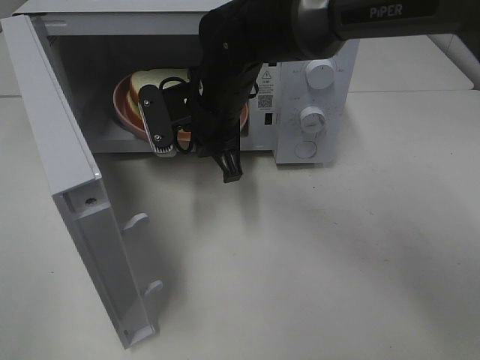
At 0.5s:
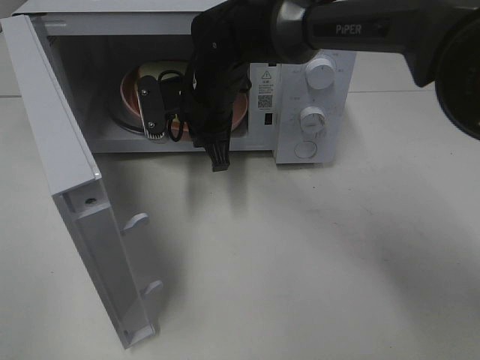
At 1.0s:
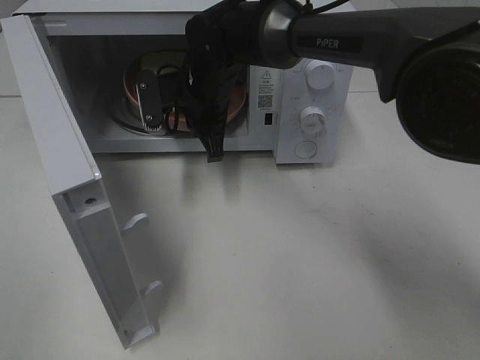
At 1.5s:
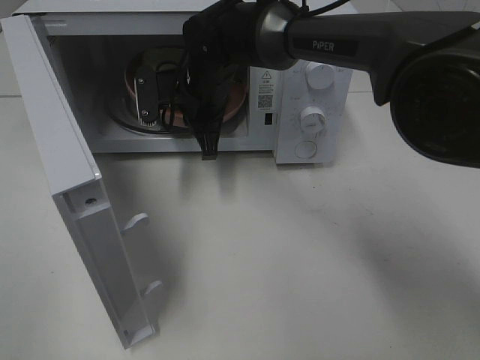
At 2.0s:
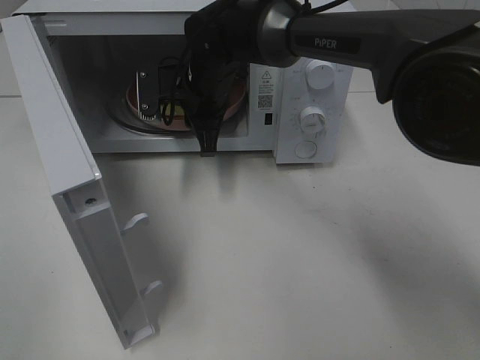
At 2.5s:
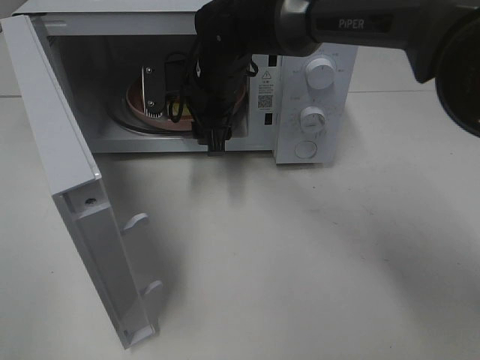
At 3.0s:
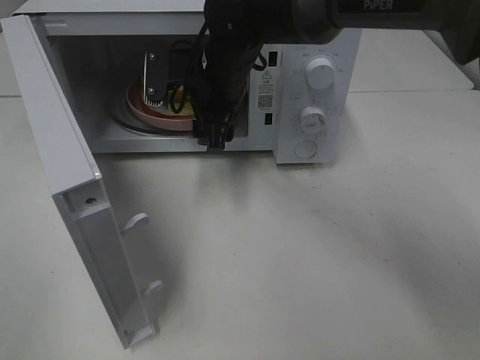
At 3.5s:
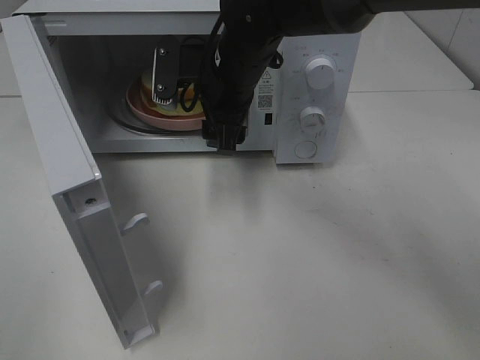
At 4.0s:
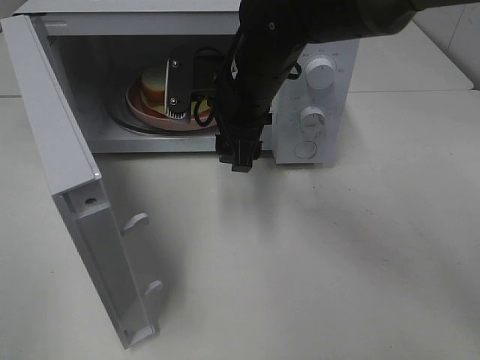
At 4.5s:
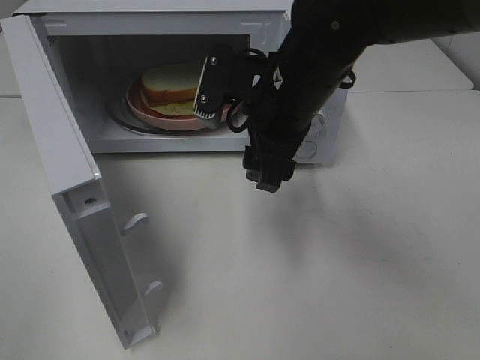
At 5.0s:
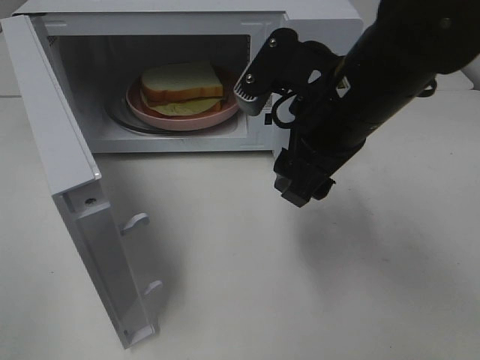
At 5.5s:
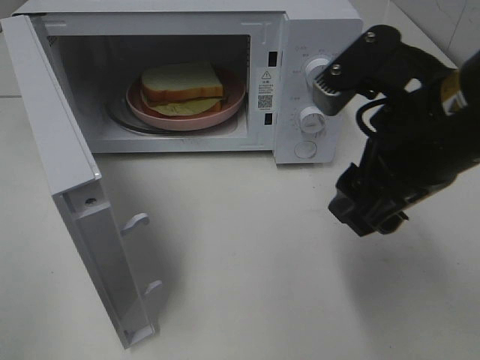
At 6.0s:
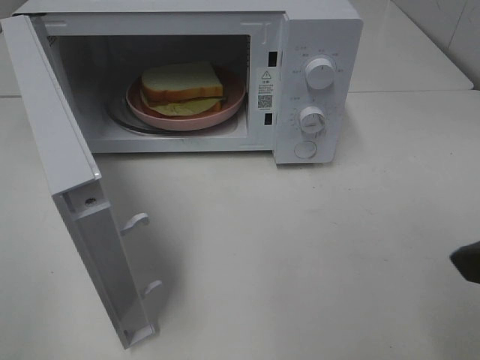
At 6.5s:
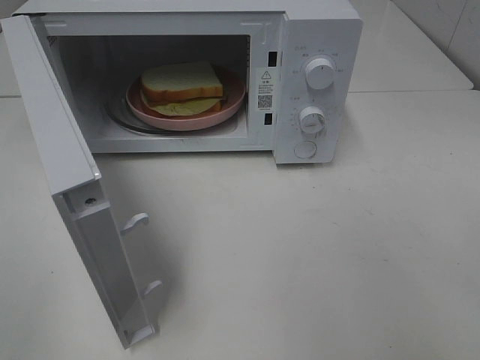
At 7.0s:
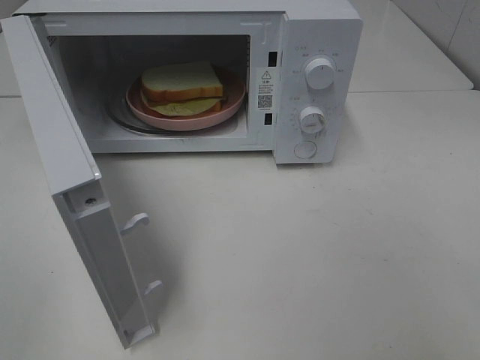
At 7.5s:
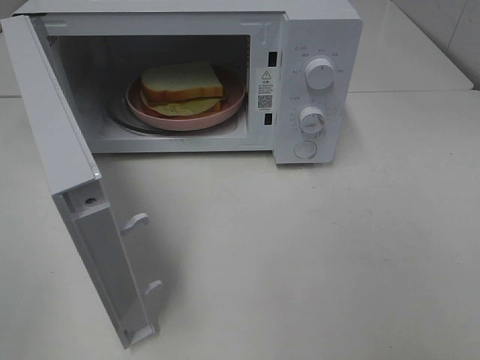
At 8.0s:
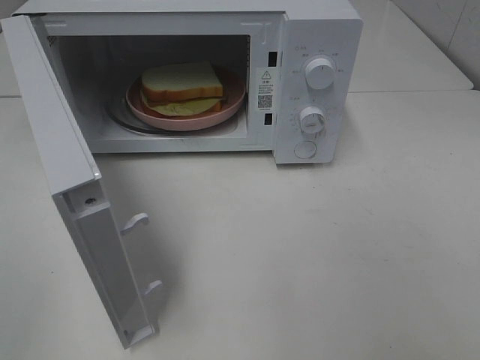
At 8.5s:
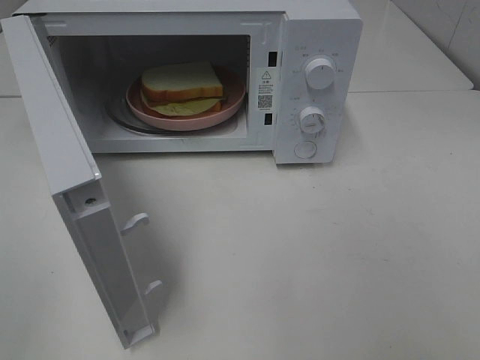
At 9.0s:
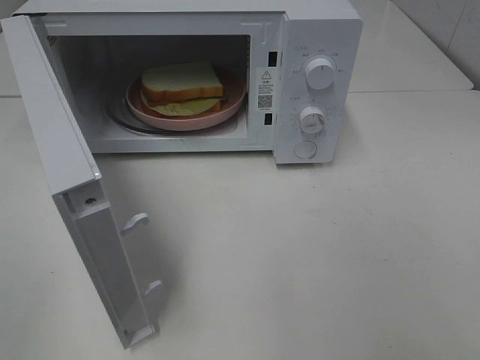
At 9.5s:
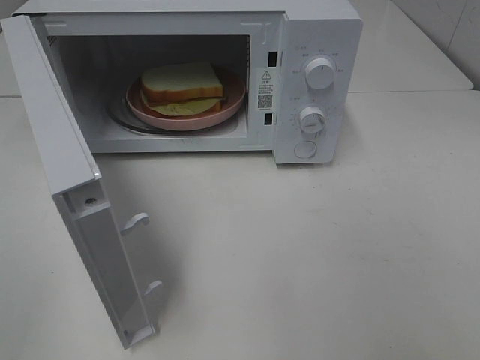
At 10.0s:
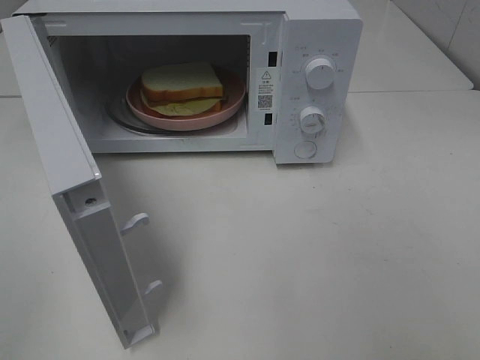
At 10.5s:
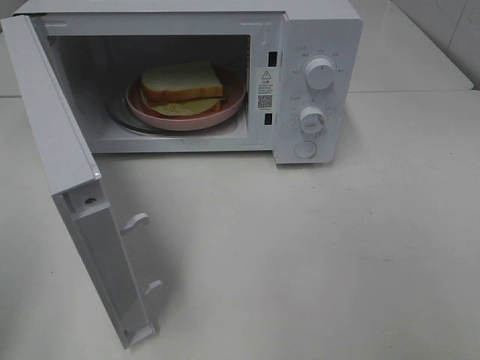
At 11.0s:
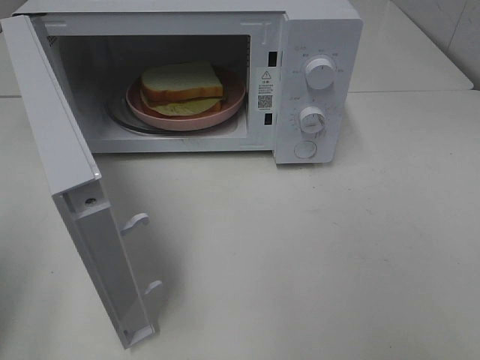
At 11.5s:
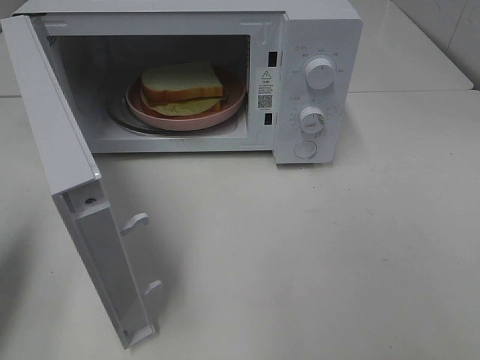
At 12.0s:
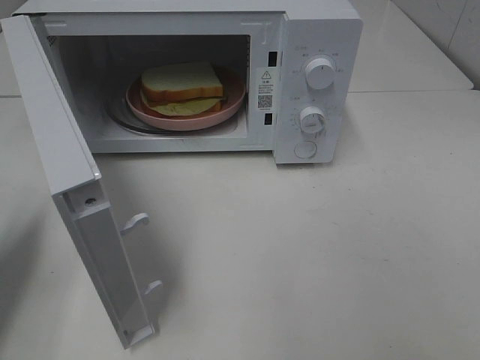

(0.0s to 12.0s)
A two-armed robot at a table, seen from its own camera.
Task of the whole recording: Heat Sandwich.
Step, 0.0s - 2.5s: Right hand: place the plate in the microwave.
0.0s - 2.0s: The right gripper moves forward, roughly 5 cm.
2.0s - 4.0s: The right gripper is displaced backward and to the right by roughly 10 cm, and opens up.
4.0s - 6.0s: The right gripper goes about 30 cm backward and to the right.
6.0s - 8.0s: The right gripper moves backward and to the right, approximately 15 cm.
8.0s - 10.0s: Both grippers stay put.
10.0s - 12.0s: The left gripper shifts roughly 25 cm forward and downward, and closes.

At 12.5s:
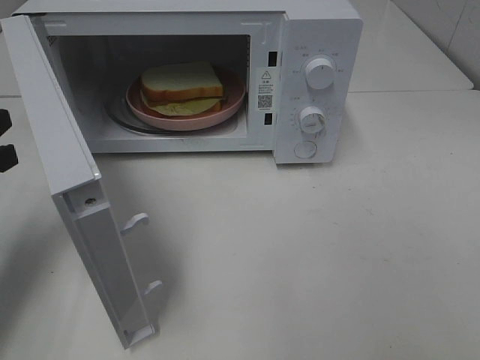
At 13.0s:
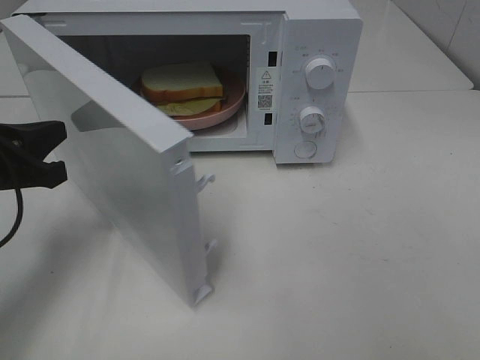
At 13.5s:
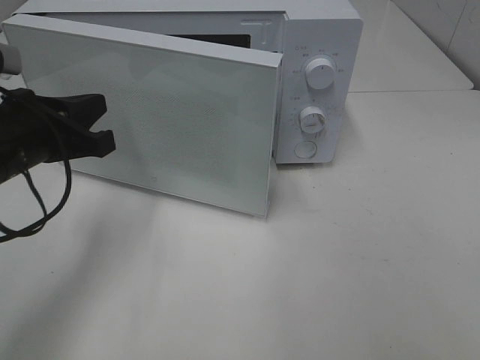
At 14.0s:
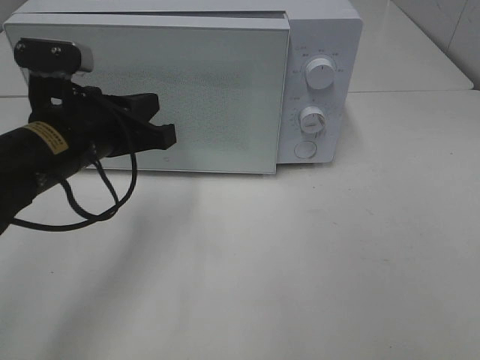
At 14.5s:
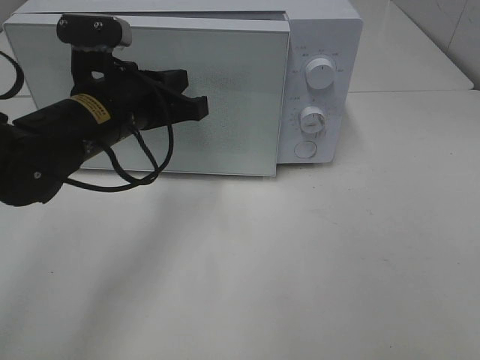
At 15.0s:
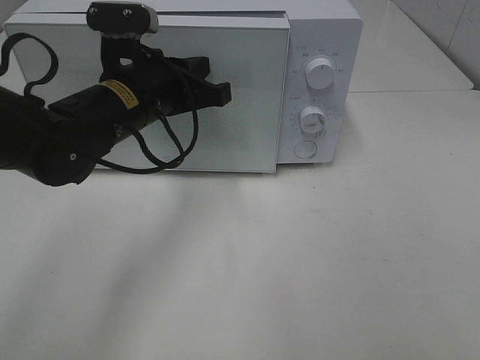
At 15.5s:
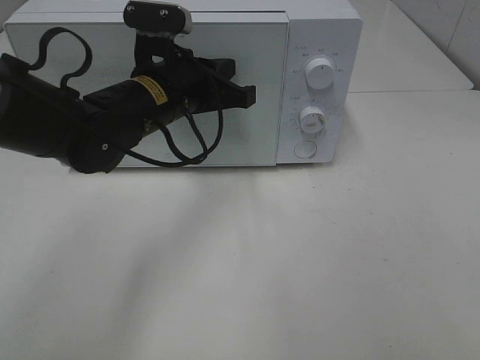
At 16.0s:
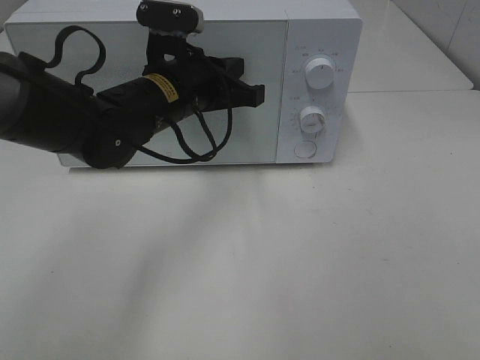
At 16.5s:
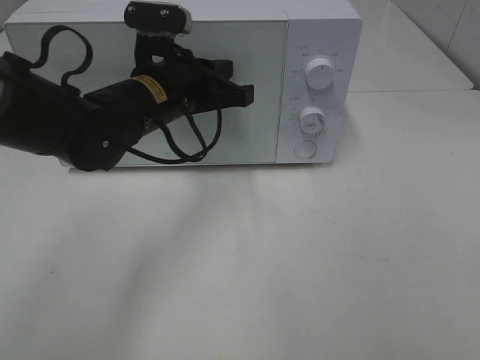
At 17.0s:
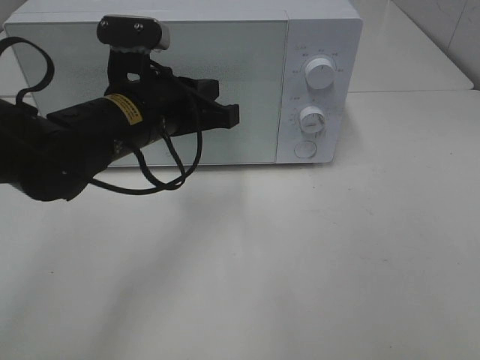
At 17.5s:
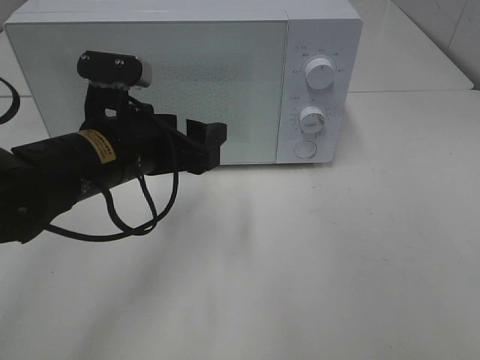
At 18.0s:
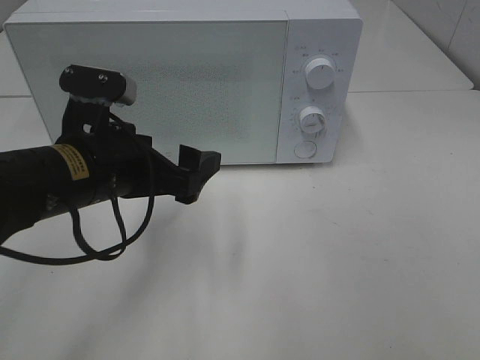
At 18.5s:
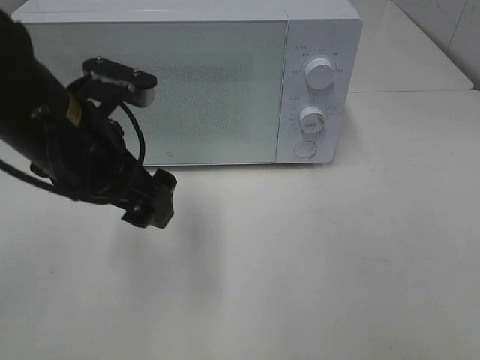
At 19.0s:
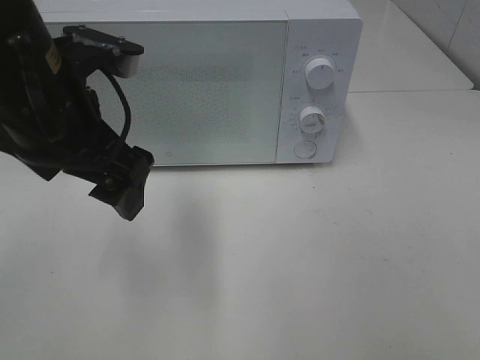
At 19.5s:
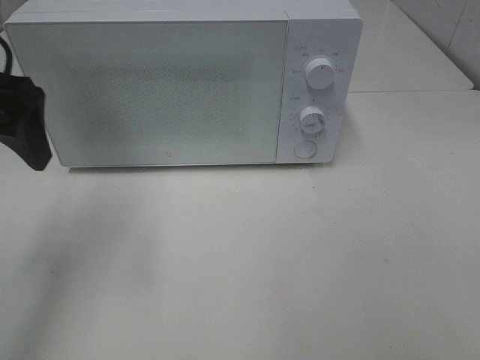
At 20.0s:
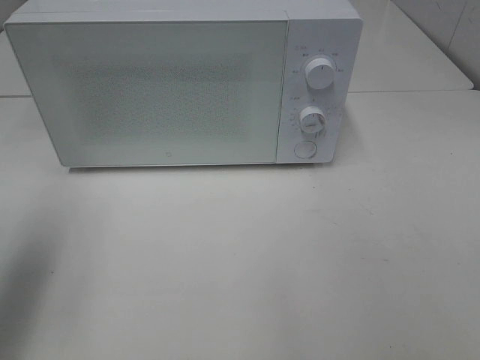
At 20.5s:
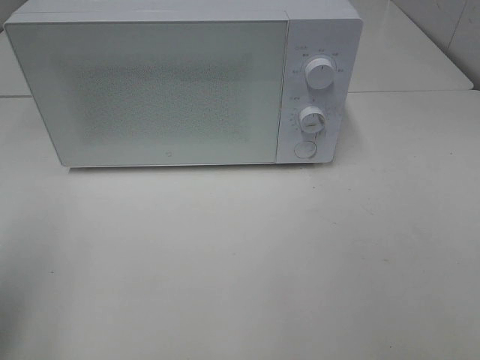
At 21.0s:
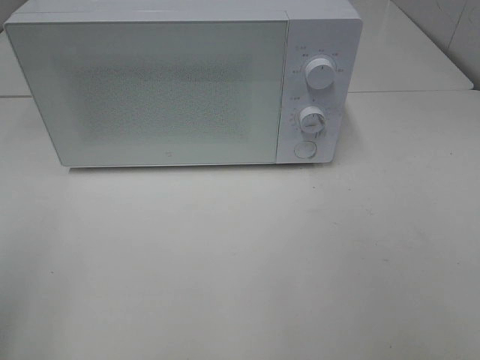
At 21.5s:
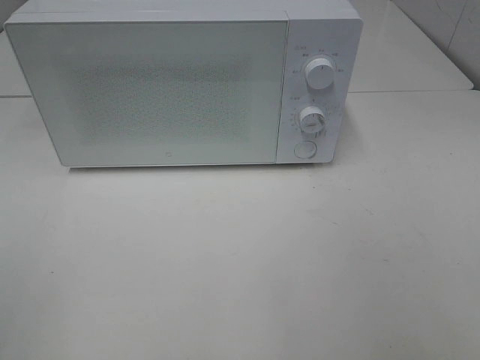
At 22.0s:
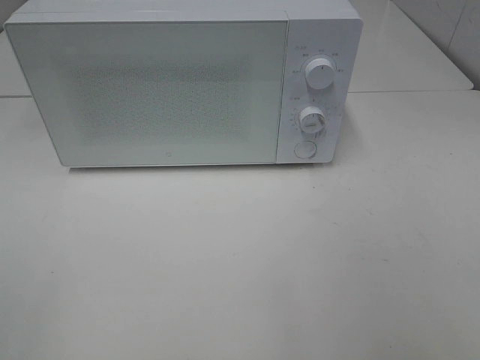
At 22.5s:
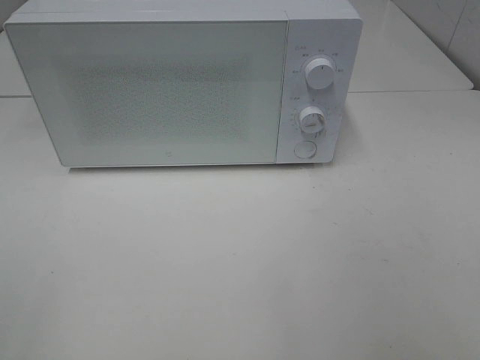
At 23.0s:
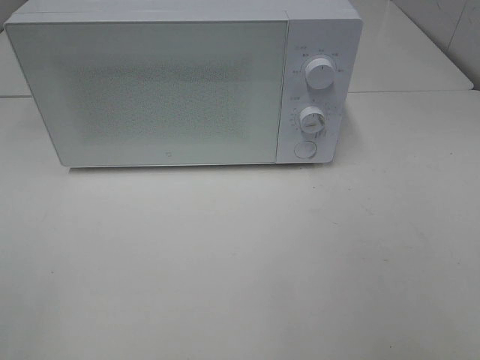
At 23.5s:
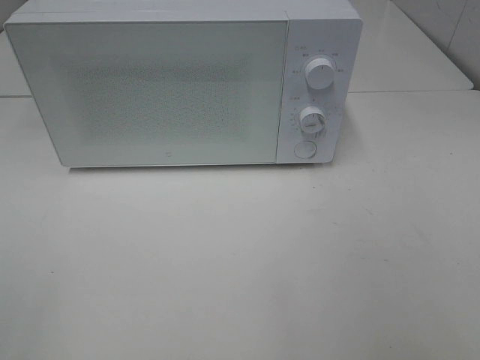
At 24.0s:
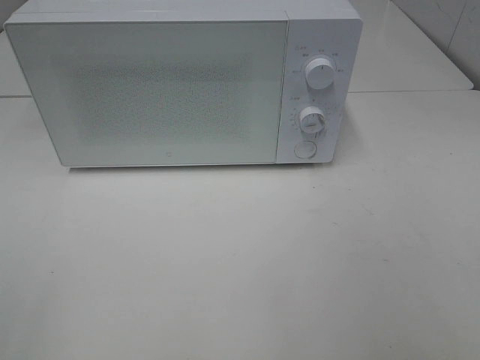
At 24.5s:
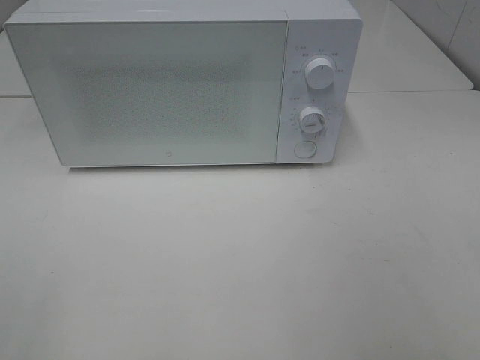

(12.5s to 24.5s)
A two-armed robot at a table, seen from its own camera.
Task of the whole recording: Heat Sandwich.
Step, 12.5s - 16.5s: Left hand: close the microwave door.
12.5s - 14.5s: The left gripper travels to the right by some 15 cm.
14.5s - 16.5s: The left gripper changes place by about 5 cm.
16.5s - 18.5s: The left gripper heads backward and to the left, covering about 10 cm, and opens up.
18.5s - 20.5s: The left gripper heads to the left and backward, covering about 20 cm.
20.5s - 22.5s: The left gripper moves backward, approximately 15 cm.

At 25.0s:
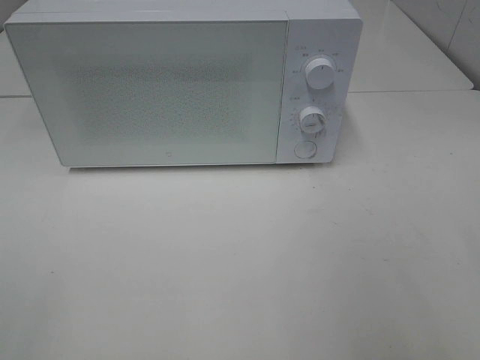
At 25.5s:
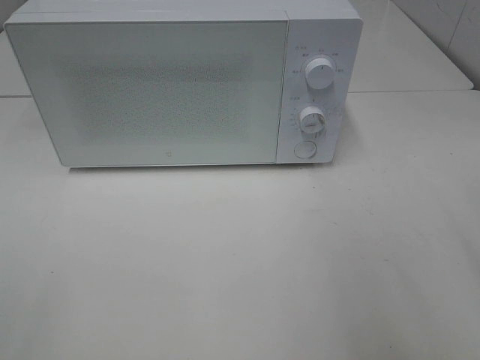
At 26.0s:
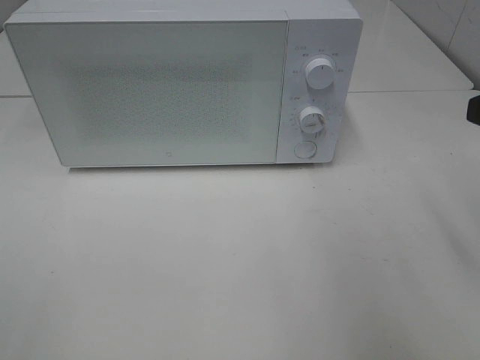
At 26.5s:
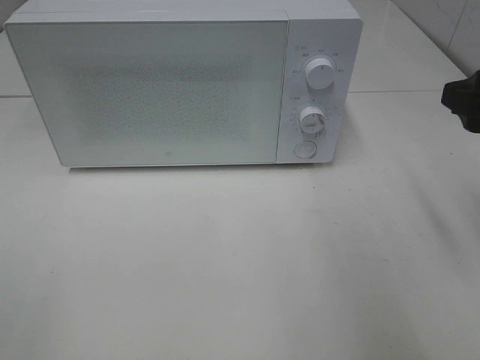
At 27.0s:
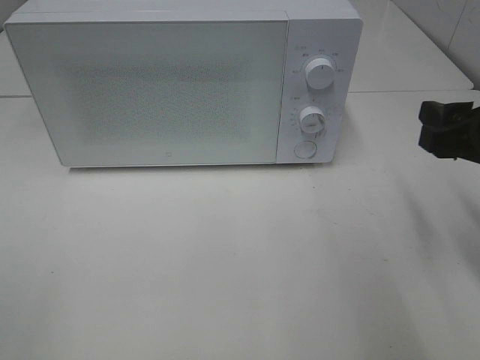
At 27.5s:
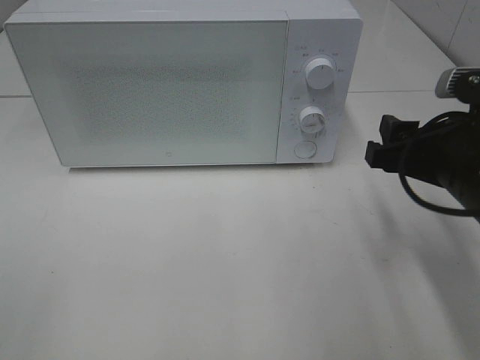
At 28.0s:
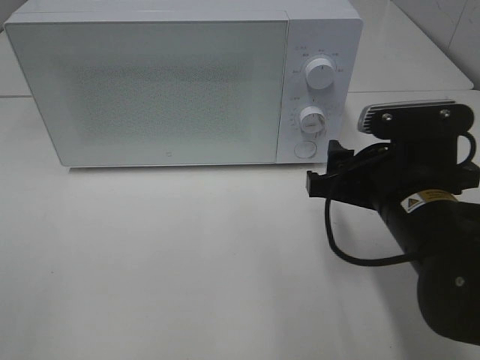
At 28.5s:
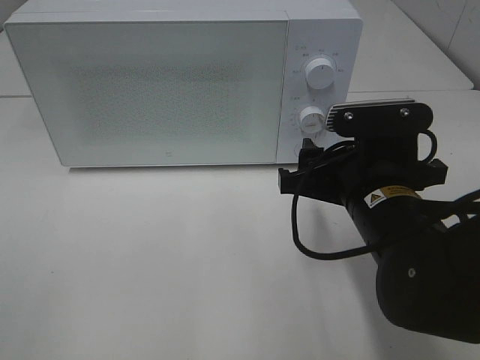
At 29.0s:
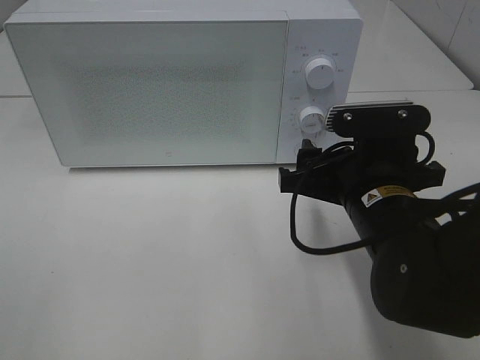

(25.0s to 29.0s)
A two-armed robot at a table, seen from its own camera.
Task of the whole recording: Heat Sandwich.
25.0s - 27.0s: The right gripper moves forward and downward, roughly 15 cm.
27.0s - 29.0s: The right gripper travels to the left and downward by some 15 cm.
